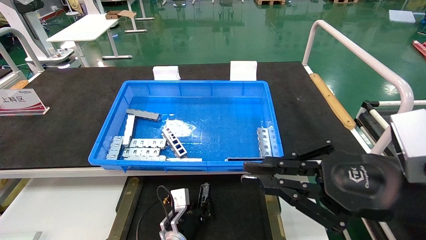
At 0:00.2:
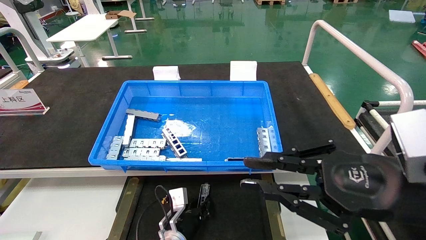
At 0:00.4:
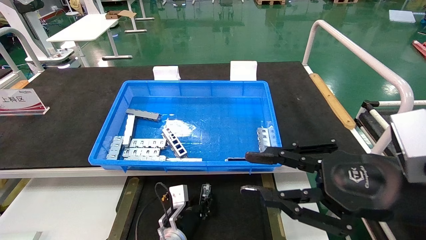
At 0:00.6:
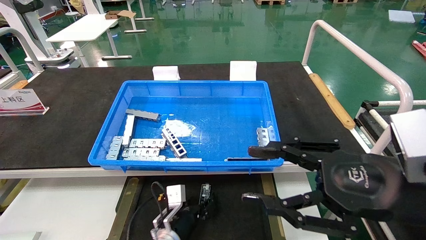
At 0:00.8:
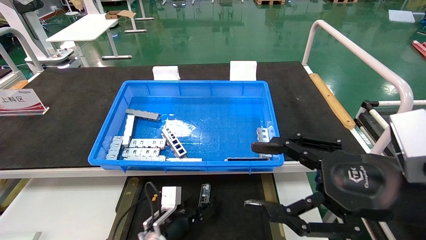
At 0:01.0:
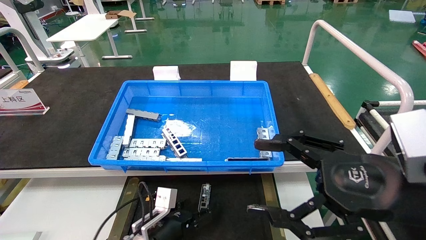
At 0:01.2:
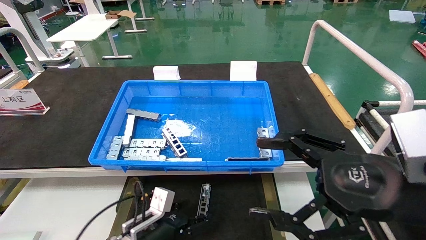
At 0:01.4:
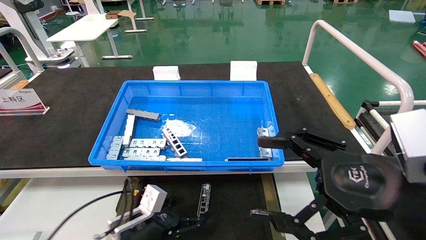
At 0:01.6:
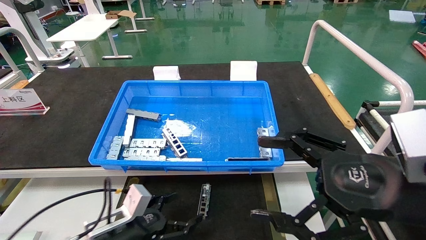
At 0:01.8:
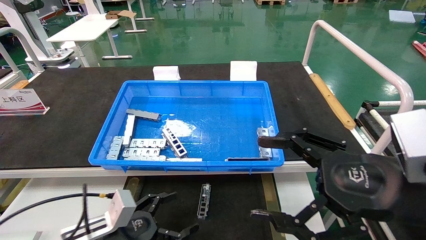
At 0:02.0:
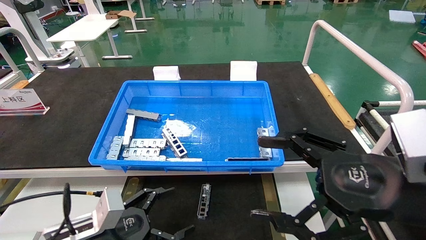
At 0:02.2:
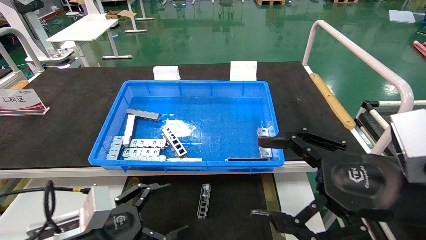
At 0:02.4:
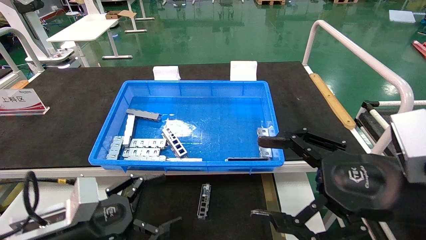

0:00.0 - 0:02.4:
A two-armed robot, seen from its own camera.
Task of the whole recording: Grasp the part with one hand and place it on the black container.
0:00.0 - 0:01.2: The right gripper opens its fingers. Meanwhile the left gripper travels to the left, backward and upward by about 10 cm, and opens its fingers.
0:01.2 - 0:02.4: The left gripper heads upward, to the left and backward, covering roughly 20 cm.
